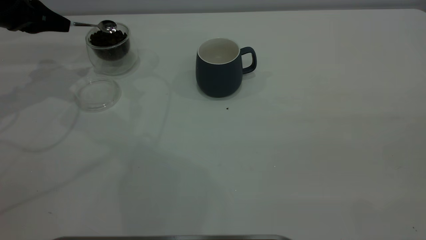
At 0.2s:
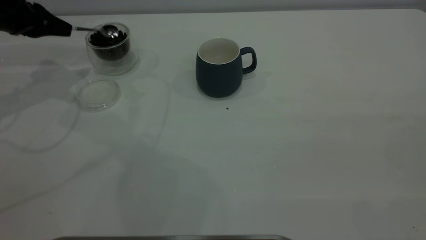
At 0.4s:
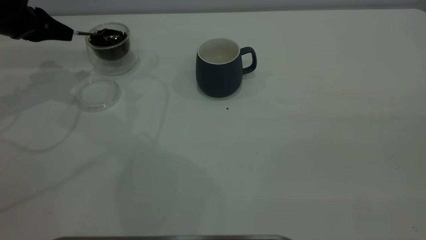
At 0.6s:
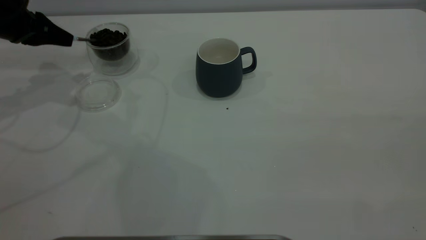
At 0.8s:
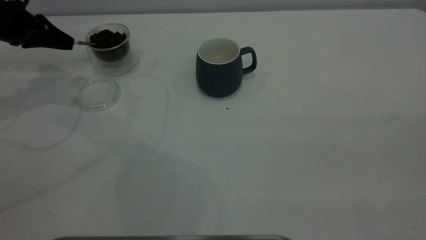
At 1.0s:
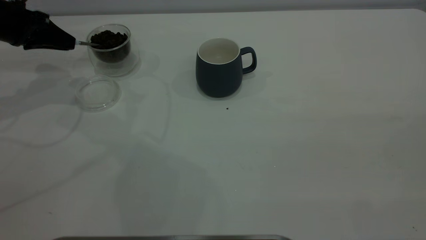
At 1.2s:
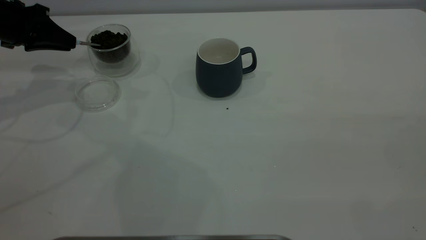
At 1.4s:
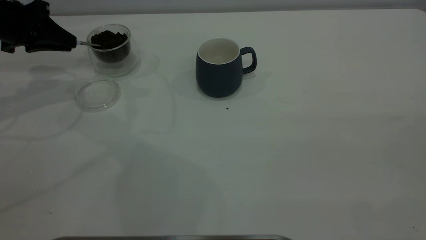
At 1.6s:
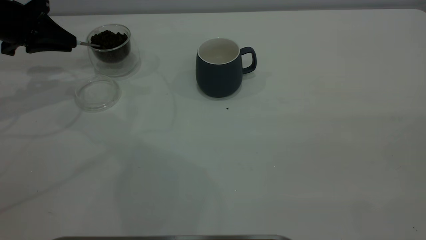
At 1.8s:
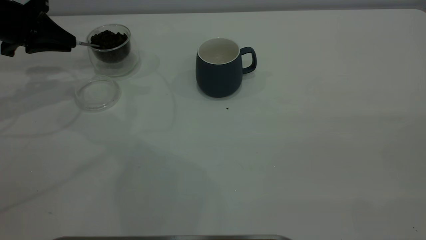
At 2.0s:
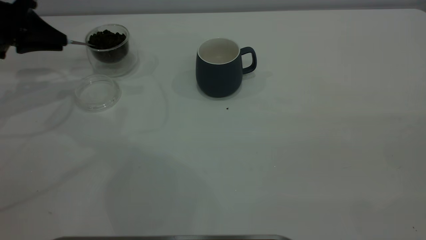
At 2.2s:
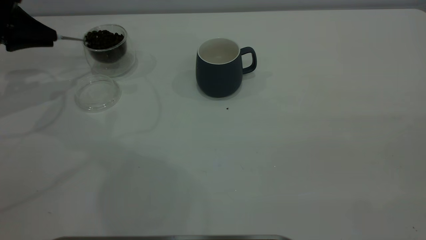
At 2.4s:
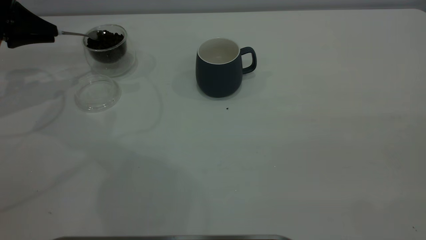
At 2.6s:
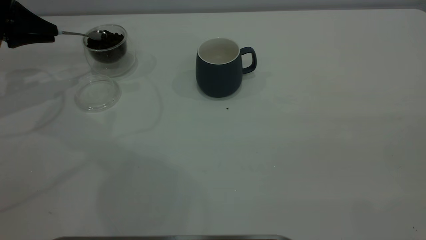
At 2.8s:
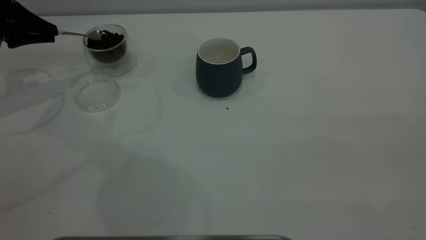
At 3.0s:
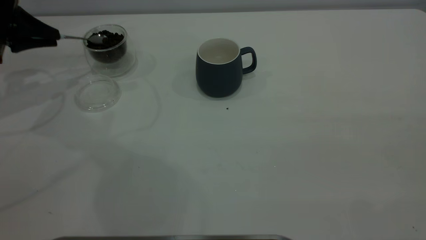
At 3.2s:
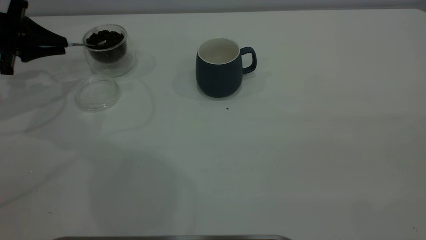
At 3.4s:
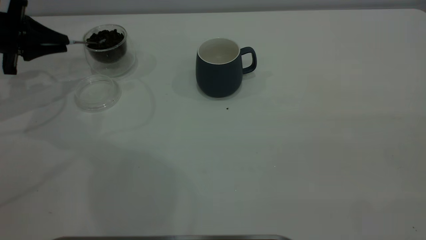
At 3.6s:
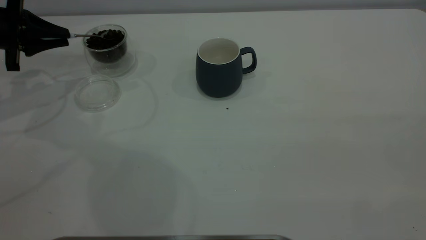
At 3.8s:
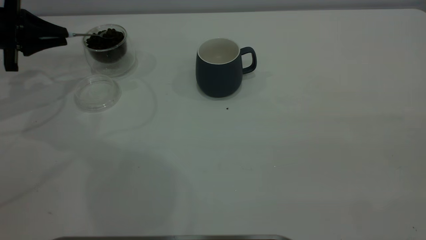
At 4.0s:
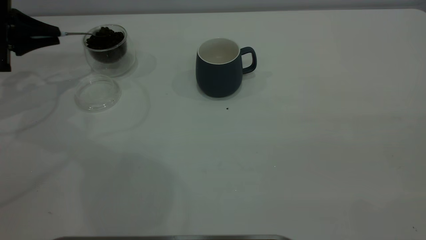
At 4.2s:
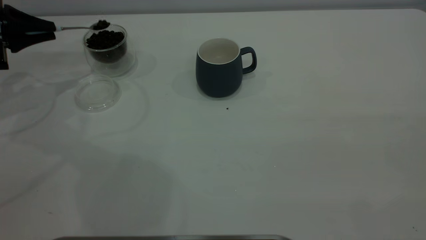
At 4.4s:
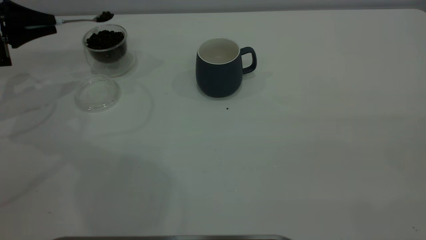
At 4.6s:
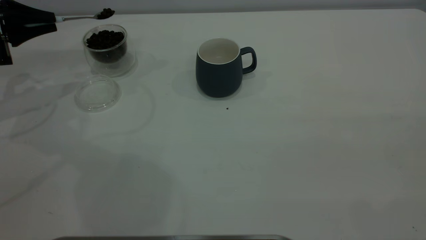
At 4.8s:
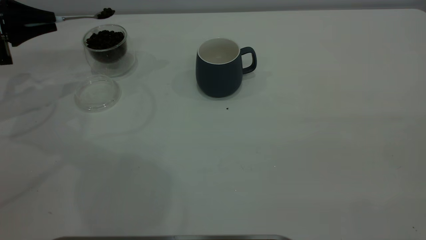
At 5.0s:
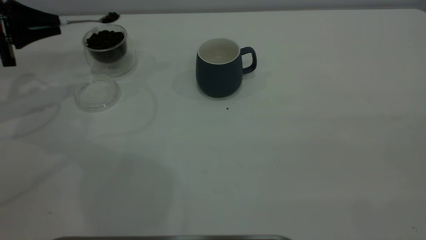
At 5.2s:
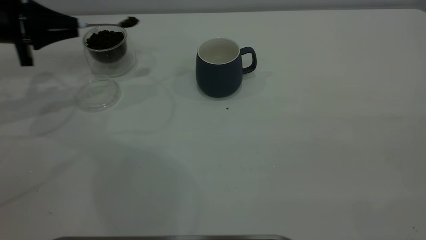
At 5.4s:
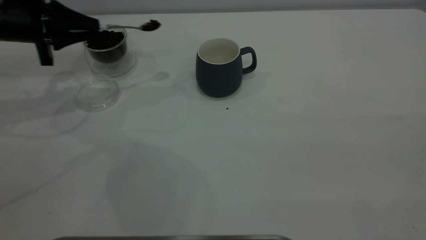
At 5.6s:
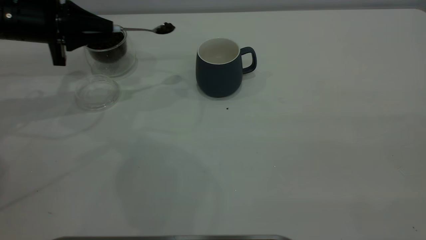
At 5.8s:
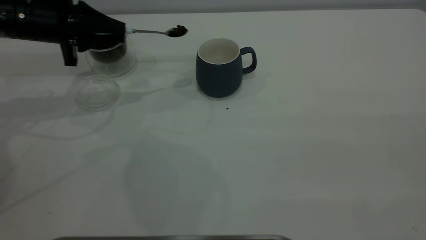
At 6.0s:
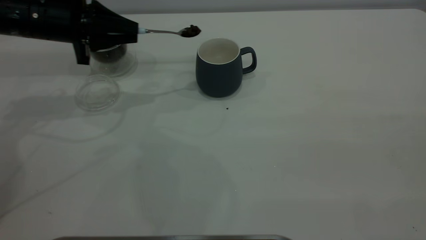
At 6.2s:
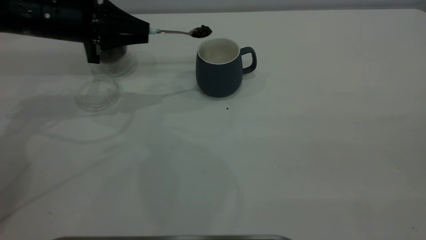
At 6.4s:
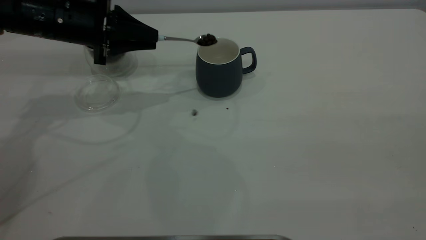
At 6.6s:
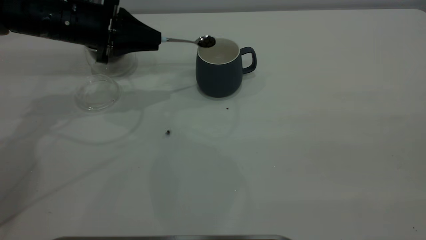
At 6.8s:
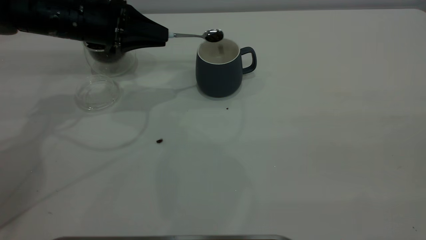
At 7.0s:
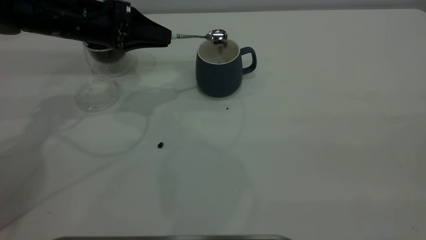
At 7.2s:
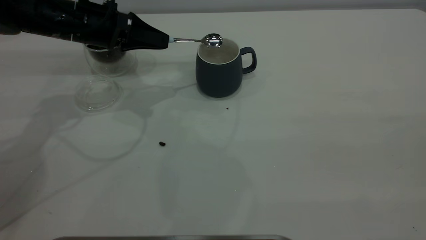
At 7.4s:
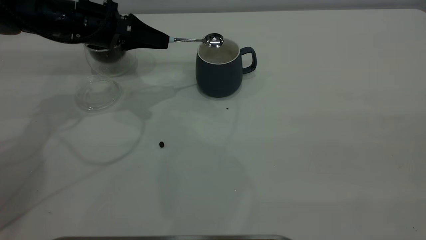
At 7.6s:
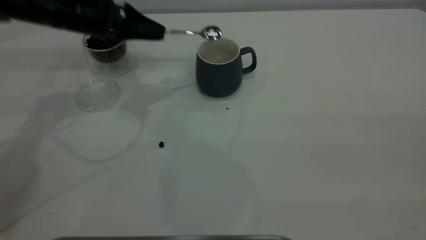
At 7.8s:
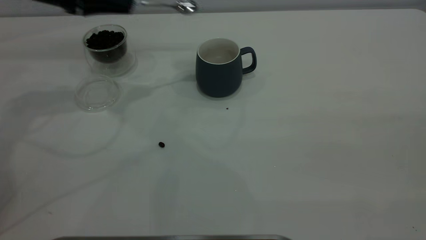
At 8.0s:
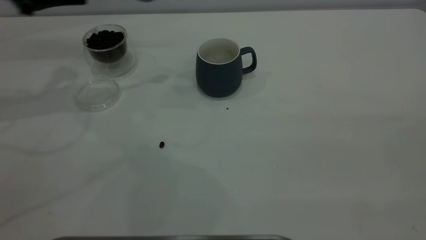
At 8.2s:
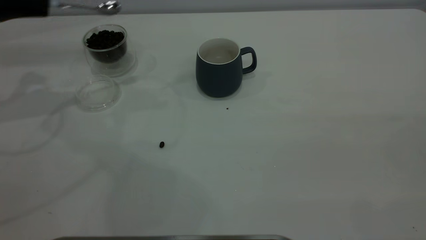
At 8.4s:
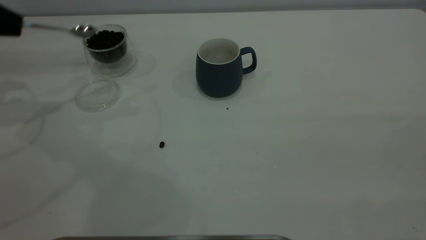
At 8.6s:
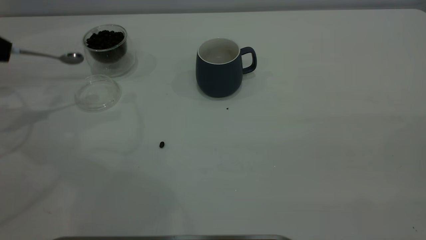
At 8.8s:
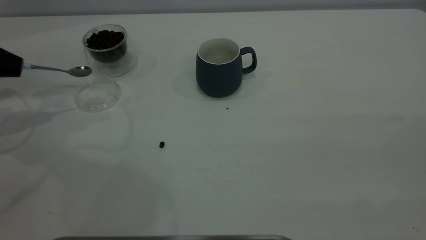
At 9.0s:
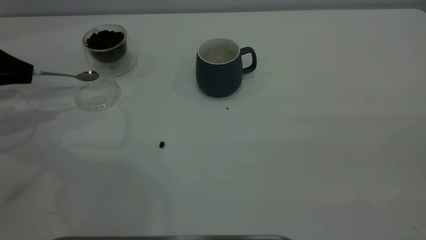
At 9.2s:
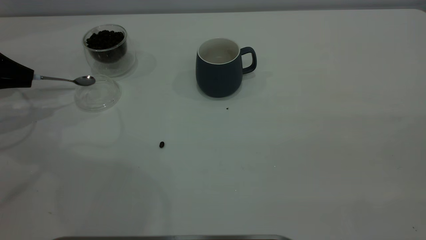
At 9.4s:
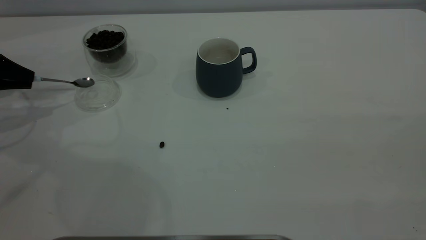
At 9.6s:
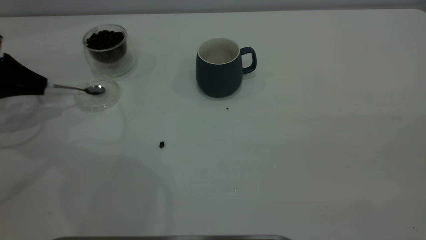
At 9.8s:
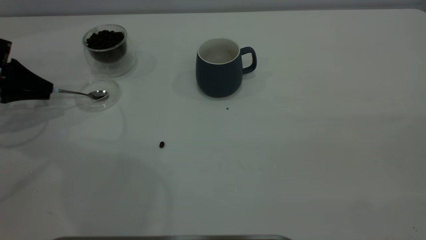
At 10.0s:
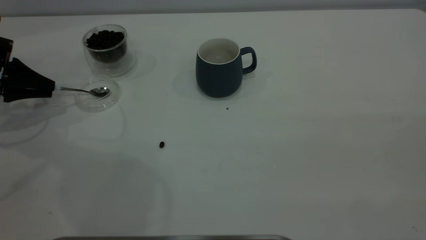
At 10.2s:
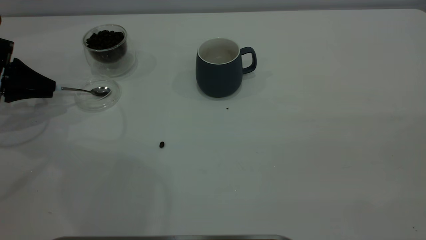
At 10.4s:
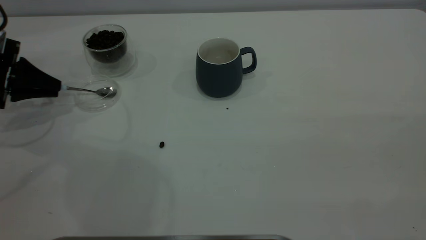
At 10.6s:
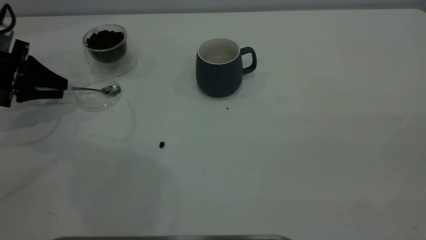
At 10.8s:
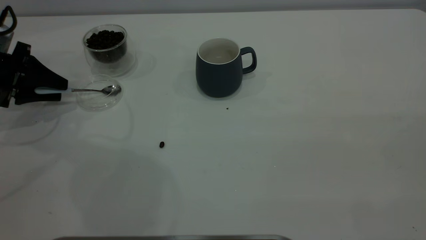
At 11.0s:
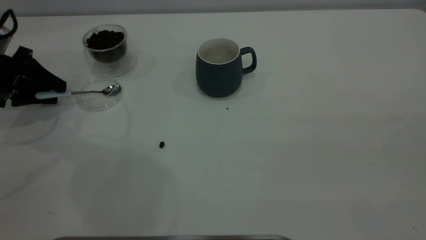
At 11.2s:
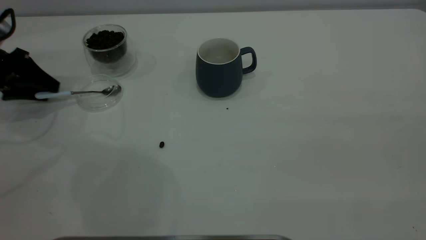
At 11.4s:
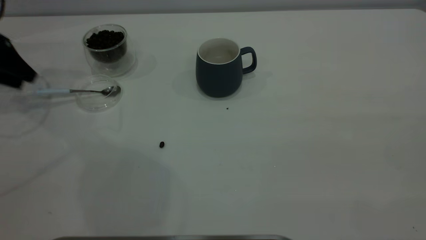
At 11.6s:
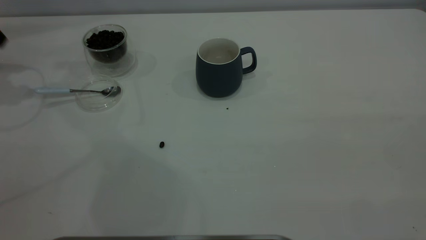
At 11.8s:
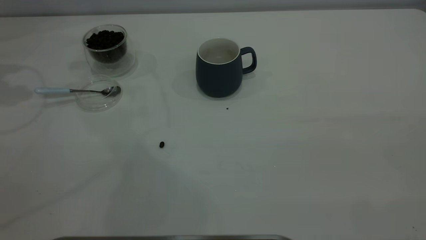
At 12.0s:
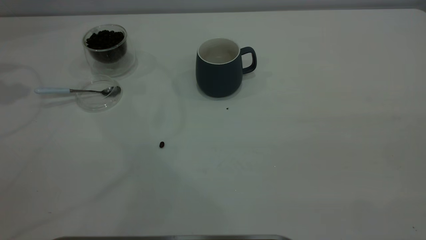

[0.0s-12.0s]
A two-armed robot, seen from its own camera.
Task of the whole recording: the right gripper place the grey cup in the center of the table, the left gripper take the blue spoon from the cup lid and scoop out the coffee beans from the coffee cup and put them into the grey cup, the left gripper put the spoon back into the cup lid.
Step, 0.0s to 7.6s: Scoop a spoonful of beans into the cup.
Step, 7.8s to 11.4s: Place the spoon back in its original place.
1.6s to 3.0s: There are only small adjustments of the grippers.
4.4s to 6.0s: The left gripper heads to the right, covering approximately 15 cm.
7.6s to 9.0s: The left gripper is displaced to the left by some 20 cm.
9.0s to 10.4s: The grippers stay close to where they were, moving slightly.
10.4s to 12.0s: The left gripper is displaced upward by some 25 cm, and opens.
